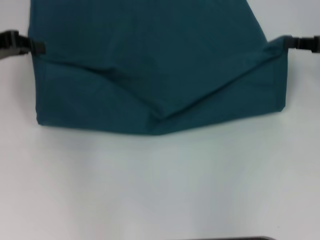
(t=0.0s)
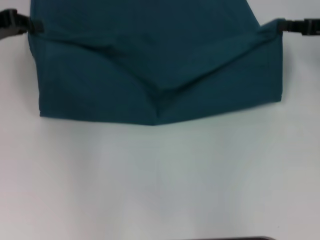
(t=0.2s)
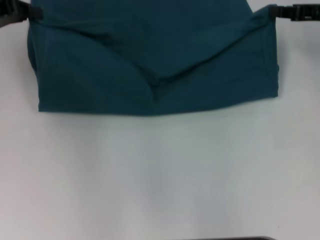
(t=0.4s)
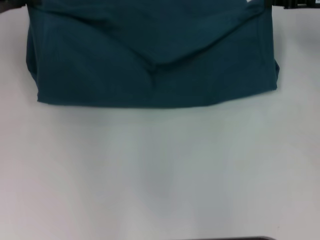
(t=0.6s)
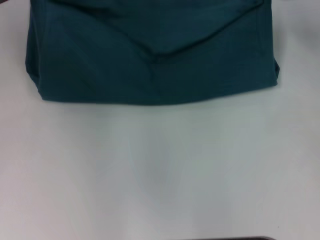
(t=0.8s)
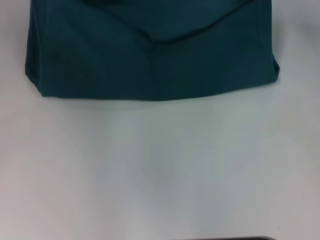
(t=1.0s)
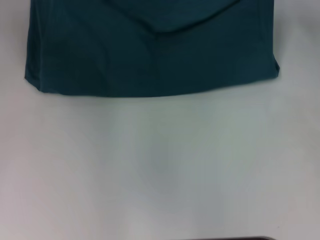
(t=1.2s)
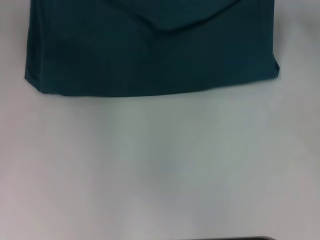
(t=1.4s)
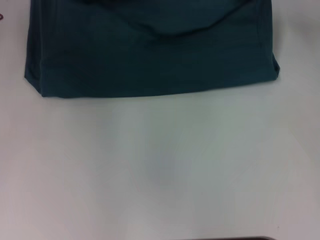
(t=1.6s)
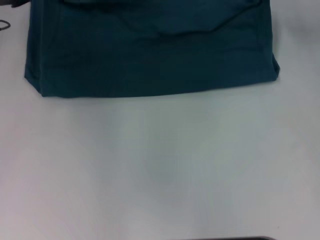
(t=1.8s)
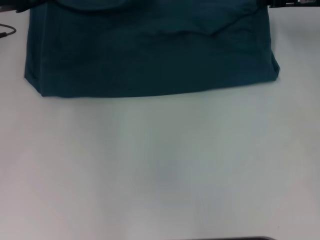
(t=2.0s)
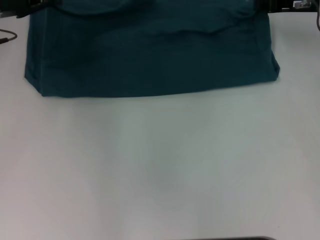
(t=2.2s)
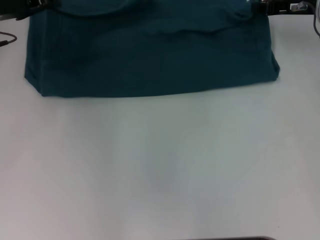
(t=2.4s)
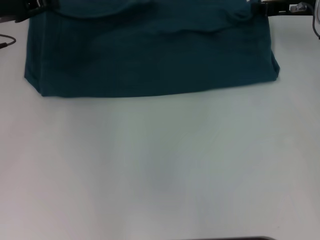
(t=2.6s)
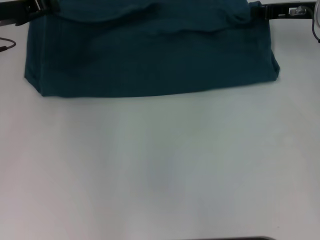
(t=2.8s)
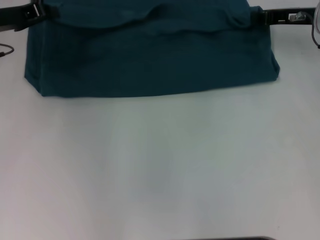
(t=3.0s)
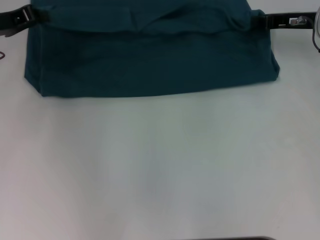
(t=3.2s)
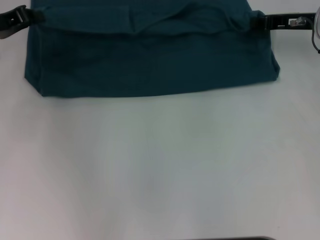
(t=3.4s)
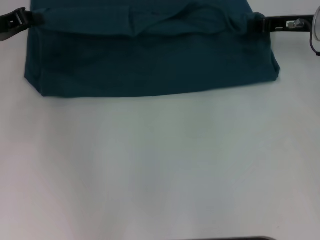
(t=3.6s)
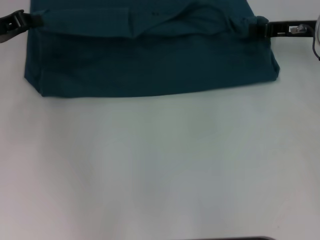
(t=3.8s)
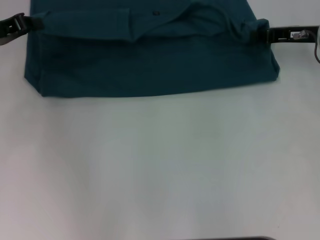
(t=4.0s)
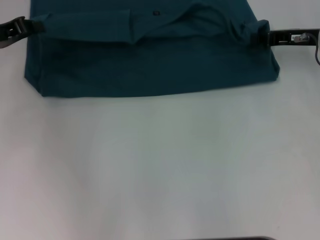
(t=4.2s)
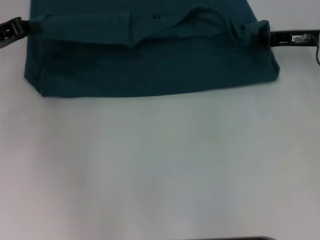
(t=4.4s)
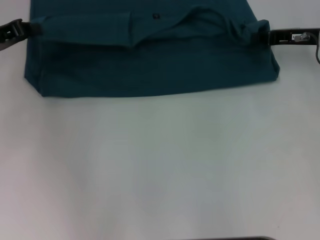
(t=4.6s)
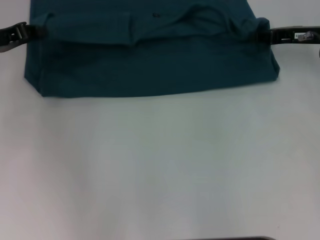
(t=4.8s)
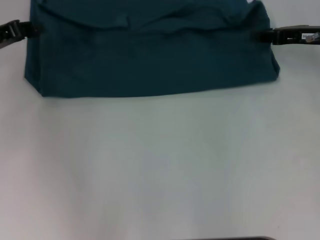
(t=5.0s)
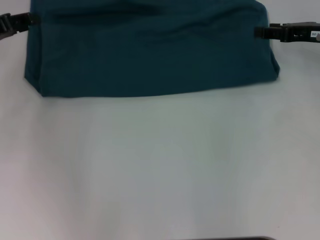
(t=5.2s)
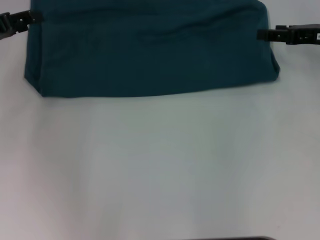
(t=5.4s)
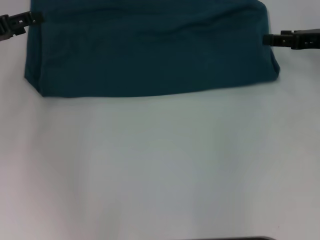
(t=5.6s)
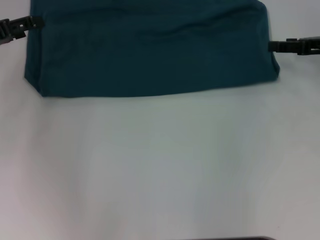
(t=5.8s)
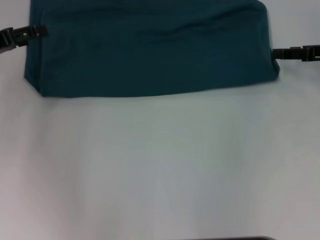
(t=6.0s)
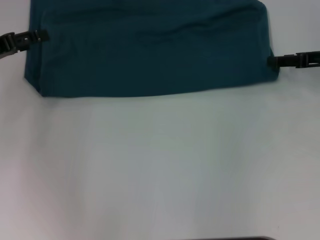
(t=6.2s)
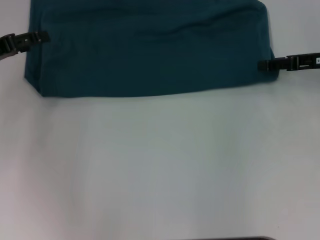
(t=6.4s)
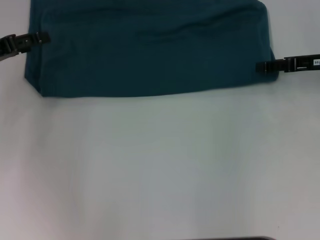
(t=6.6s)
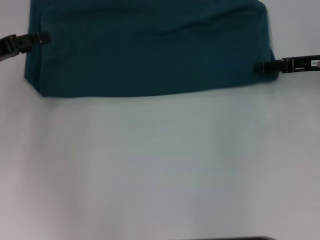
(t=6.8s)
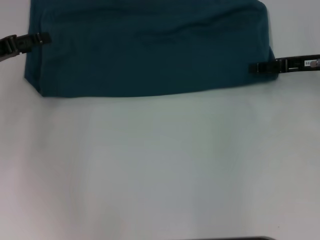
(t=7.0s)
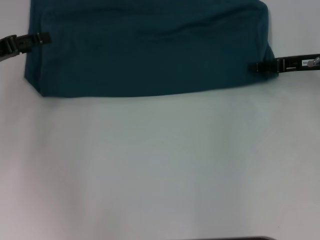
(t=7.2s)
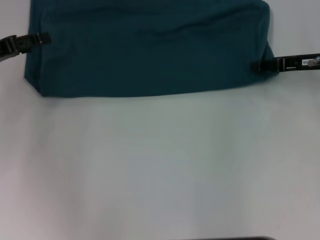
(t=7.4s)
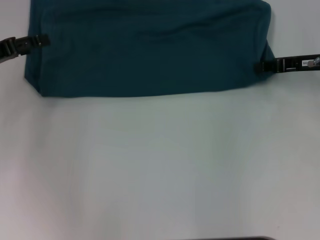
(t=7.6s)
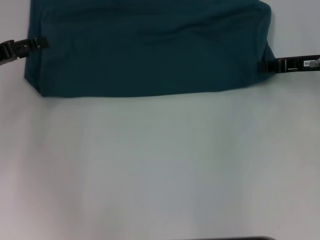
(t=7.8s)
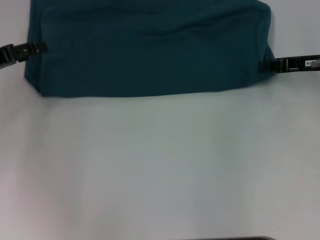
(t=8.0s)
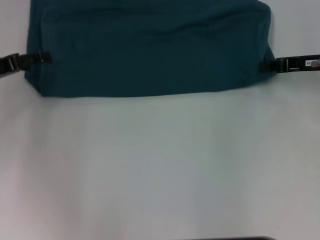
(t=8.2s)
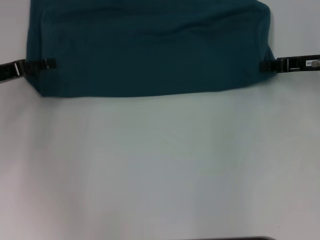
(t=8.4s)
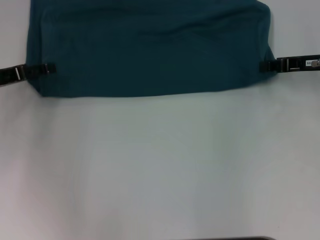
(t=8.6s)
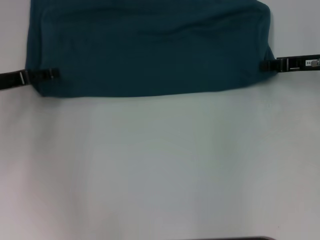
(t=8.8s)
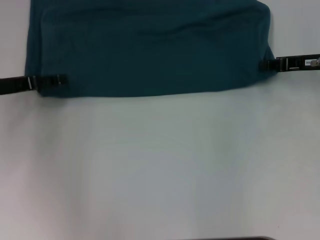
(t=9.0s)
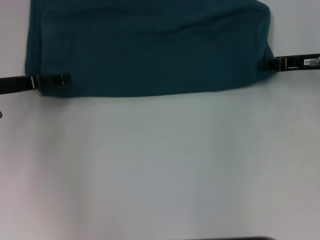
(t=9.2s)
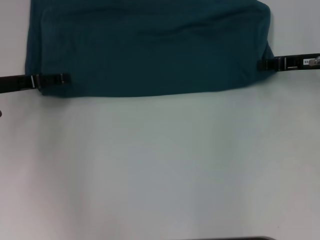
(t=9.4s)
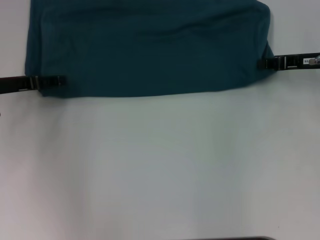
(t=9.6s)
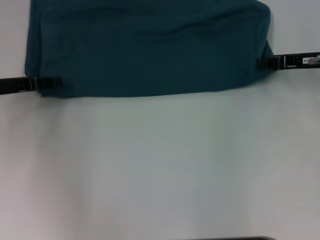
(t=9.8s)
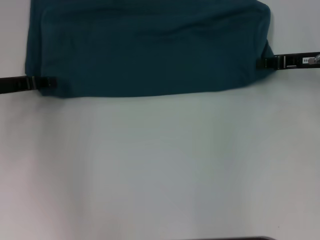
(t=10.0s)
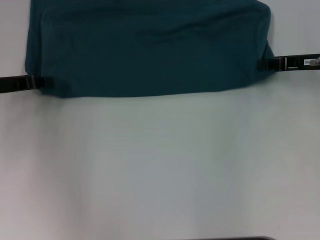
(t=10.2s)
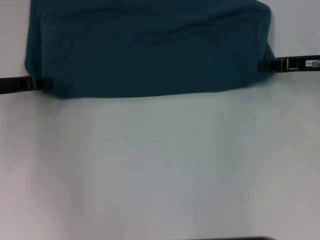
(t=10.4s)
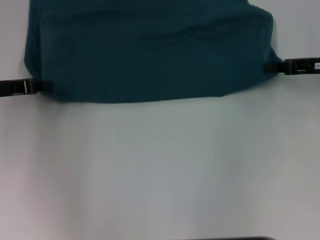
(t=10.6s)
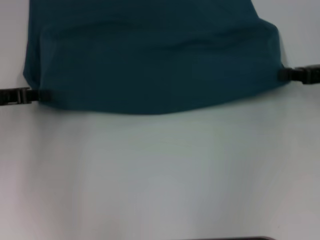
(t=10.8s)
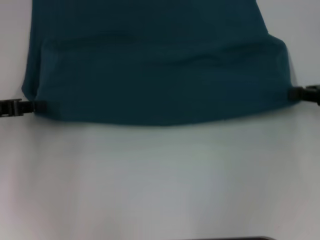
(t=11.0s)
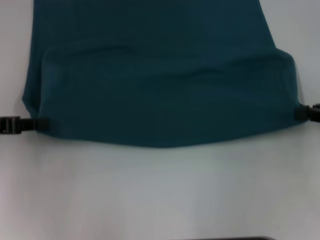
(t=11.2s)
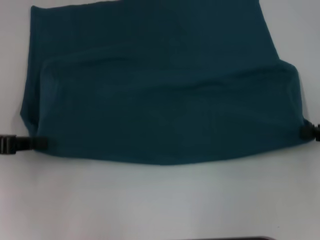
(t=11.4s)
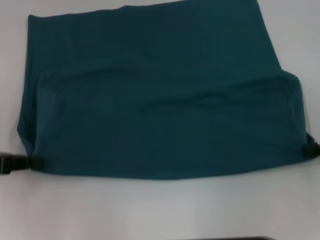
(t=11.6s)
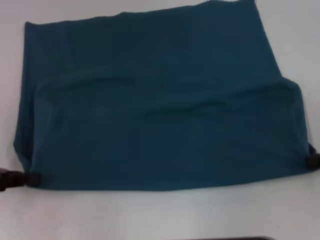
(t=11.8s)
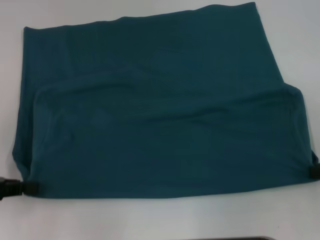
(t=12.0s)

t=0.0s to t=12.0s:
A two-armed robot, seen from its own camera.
Step, t=0.0s to t=5.8s: Fold the clothes to the left.
Step, t=0.0s to t=5.8s: Fold the clothes to the right.
t=0.0s to t=1.6s: Both grippers move forward, some 10 cm.
t=1.6s to t=3.0s: The right gripper ends up roughly 5 cm from where it was.
t=3.0s to t=4.4s: The grippers move only a little.
t=4.4s to t=6.0s: The left gripper opens up; the right gripper moves to the right, approximately 5 cm, and opens up.
t=6.0s to t=7.6s: The right gripper closes its fingers.
t=10.4s to t=12.0s: The left gripper heads backward, covering about 10 cm, while the right gripper moves backward and to the right, roughly 15 cm.

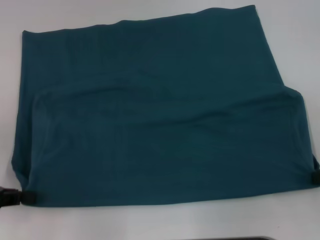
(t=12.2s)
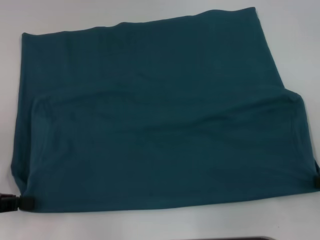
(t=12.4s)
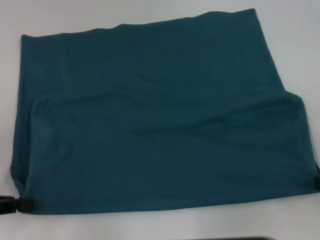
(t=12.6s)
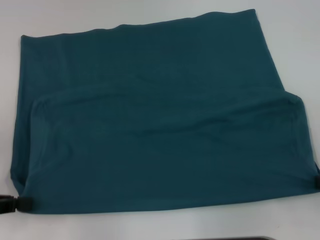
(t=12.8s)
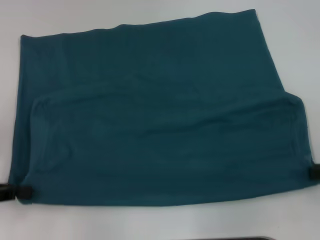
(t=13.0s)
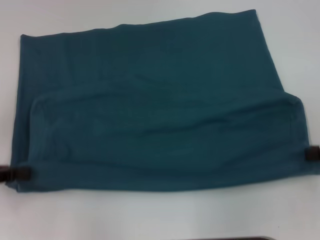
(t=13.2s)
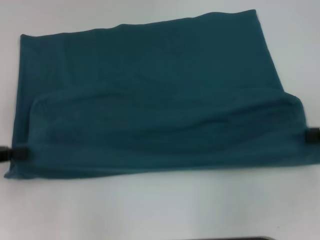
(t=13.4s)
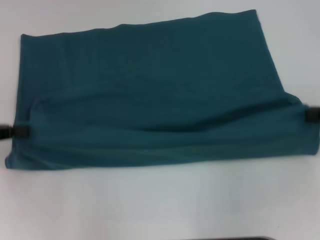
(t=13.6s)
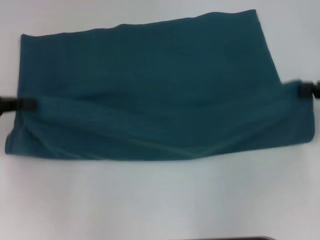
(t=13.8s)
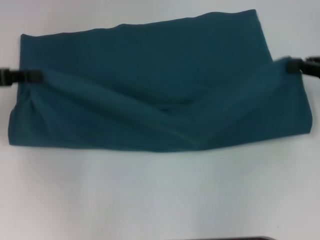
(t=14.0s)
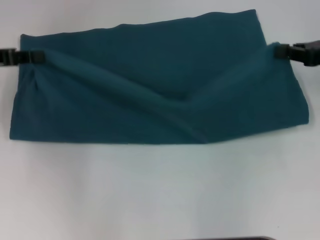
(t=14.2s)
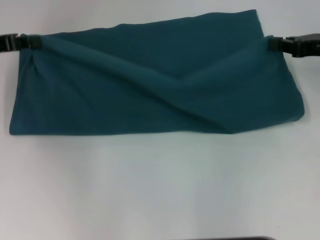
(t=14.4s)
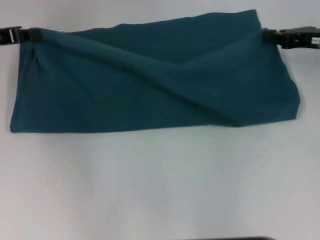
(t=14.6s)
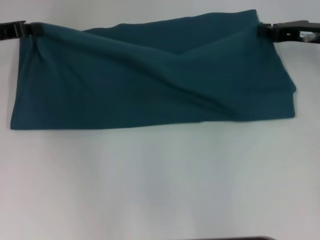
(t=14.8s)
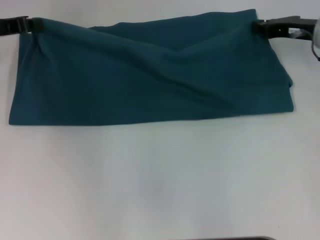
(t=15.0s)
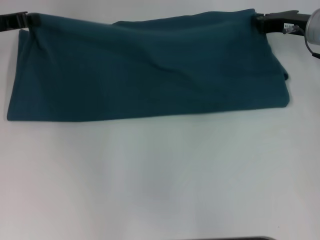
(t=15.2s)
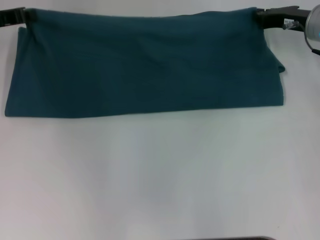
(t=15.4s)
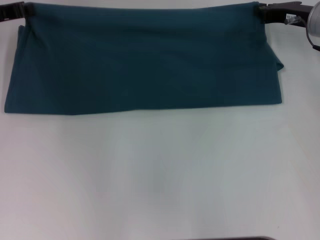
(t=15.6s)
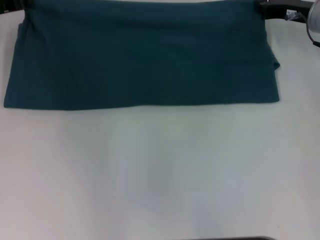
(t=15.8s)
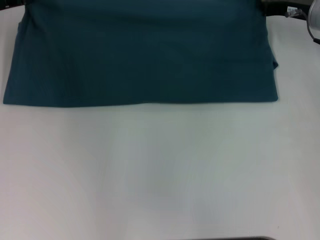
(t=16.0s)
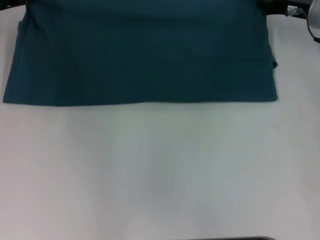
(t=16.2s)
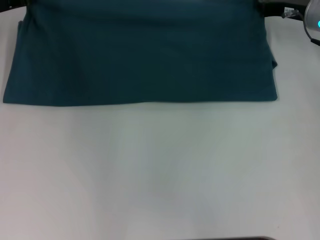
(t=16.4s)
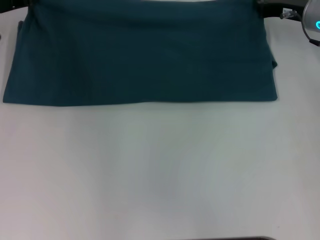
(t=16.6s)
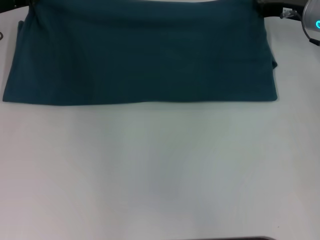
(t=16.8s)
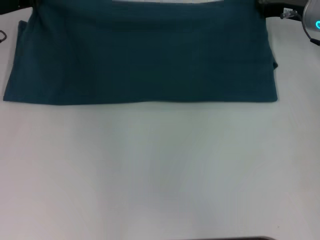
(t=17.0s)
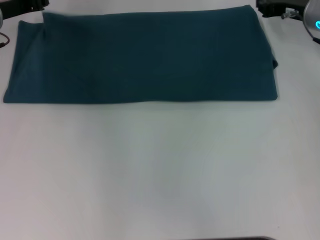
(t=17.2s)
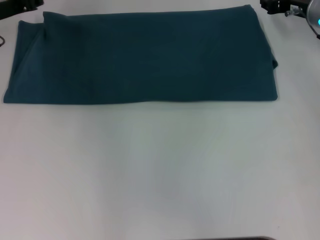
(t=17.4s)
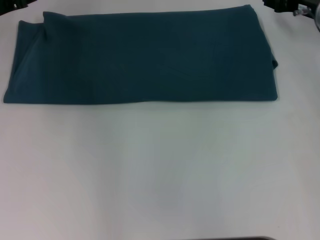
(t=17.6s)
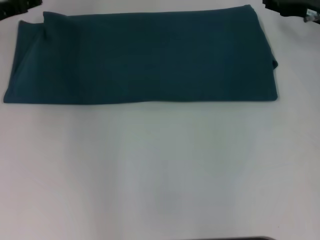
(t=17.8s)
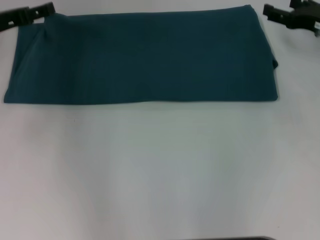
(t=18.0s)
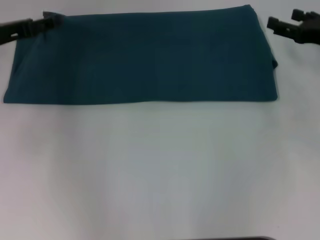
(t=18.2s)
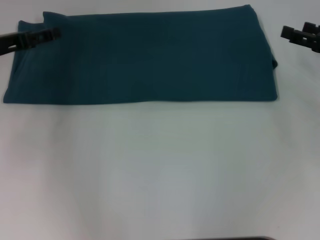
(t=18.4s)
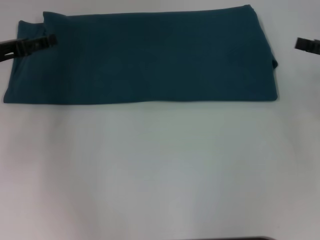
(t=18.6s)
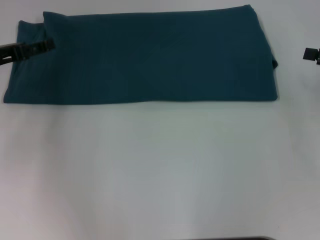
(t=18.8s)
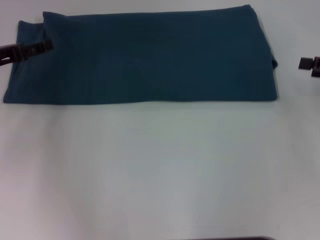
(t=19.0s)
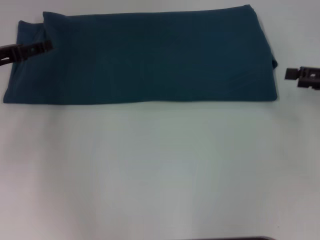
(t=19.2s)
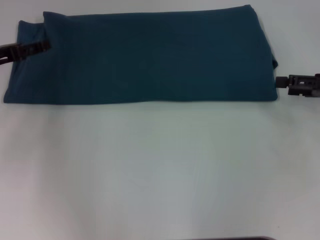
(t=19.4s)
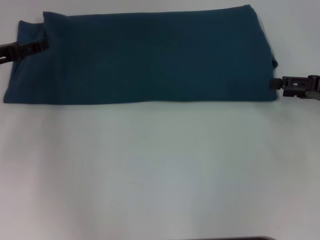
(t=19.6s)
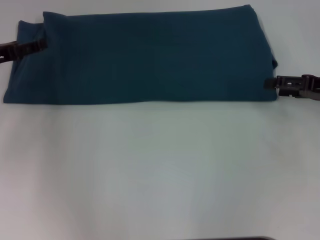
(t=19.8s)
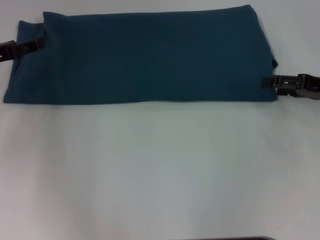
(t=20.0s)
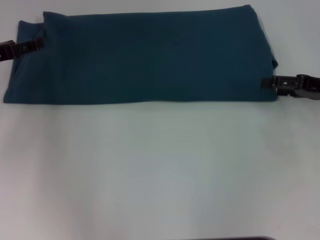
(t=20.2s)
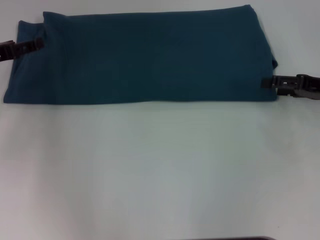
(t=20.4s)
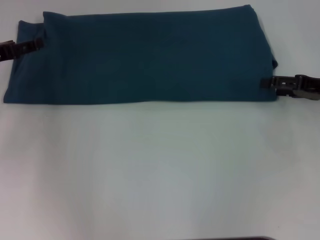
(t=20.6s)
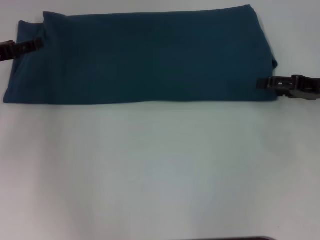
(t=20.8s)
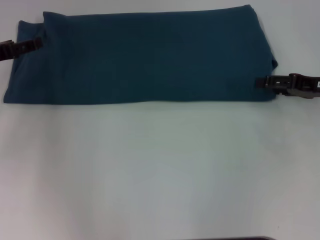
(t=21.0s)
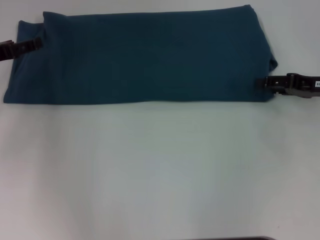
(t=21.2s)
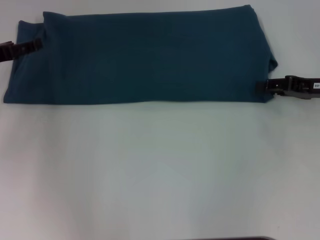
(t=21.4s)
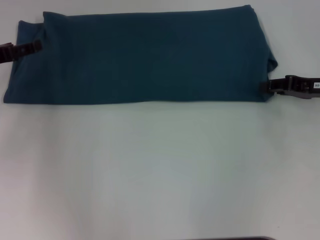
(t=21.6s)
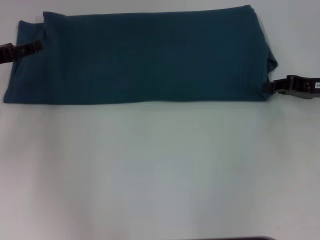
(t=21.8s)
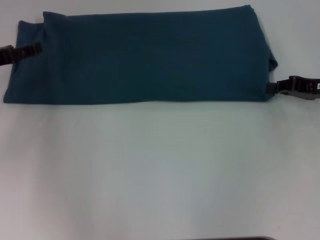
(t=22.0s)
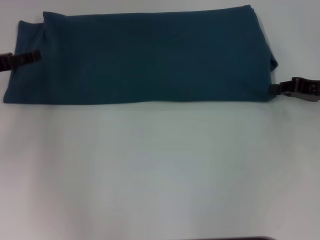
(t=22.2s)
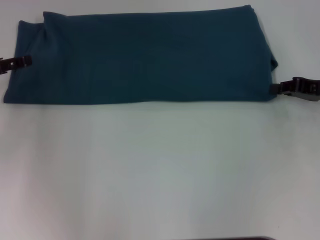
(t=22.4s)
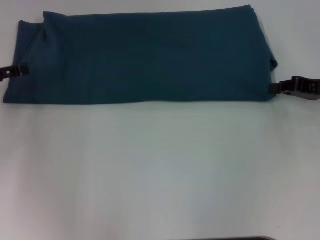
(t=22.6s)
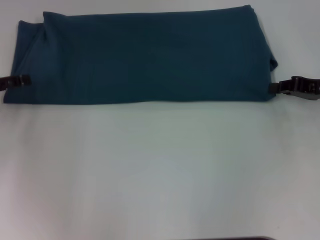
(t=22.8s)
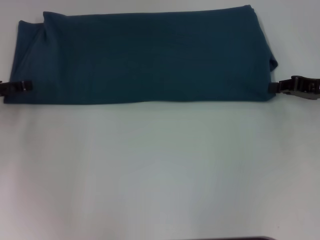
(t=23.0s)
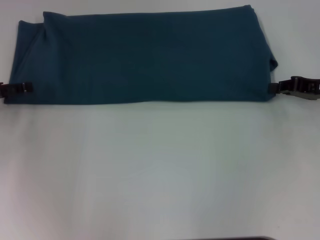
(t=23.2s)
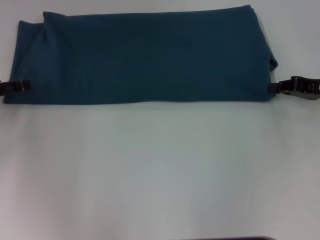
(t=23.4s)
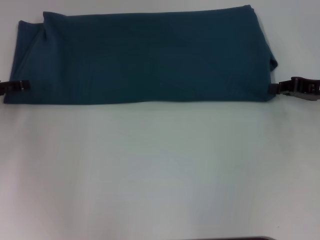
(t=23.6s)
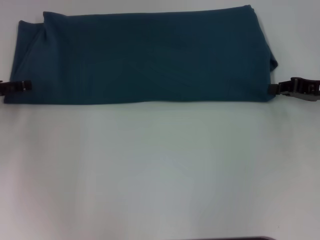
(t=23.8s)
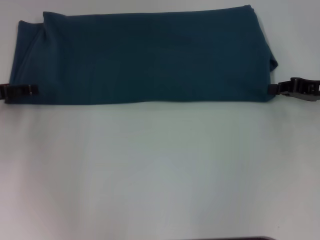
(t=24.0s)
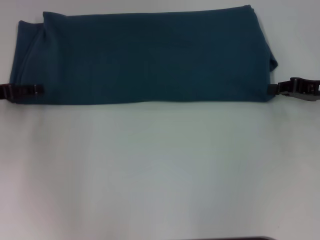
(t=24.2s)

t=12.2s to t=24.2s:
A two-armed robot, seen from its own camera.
Step, t=12.8s to t=18.0s: Fold the clothes to the left.
Step, t=12.8s to t=18.0s: Fold the clothes to the right.
t=12.2s to t=13.8s: Both grippers travel together forward, roughly 10 cm.
t=13.8s to t=15.2s: The right gripper is displaced forward and to the left by about 15 cm; the left gripper goes some 10 cm forward.
t=15.2s to t=16.6s: The grippers move only a little.
t=16.6s to t=18.2s: The left gripper heads backward, covering approximately 5 cm, and opens its fingers. Meanwhile the right gripper travels backward and to the right by some 10 cm, and opens its fingers.
t=21.2s to t=22.6s: The right gripper closes its fingers.
